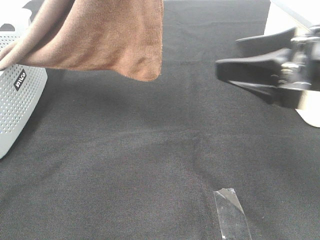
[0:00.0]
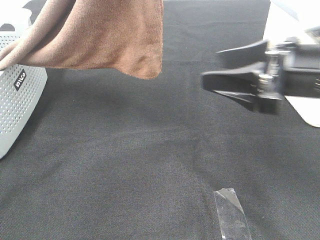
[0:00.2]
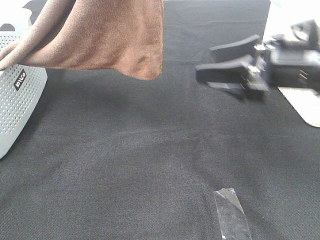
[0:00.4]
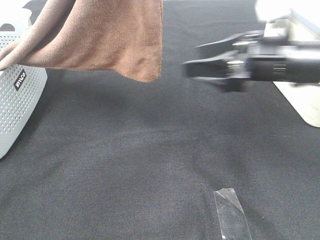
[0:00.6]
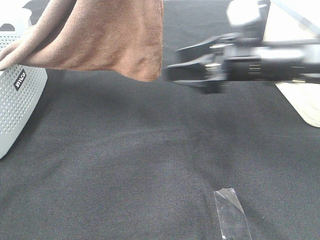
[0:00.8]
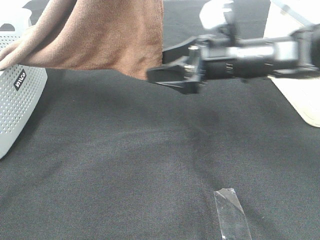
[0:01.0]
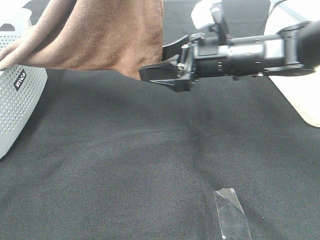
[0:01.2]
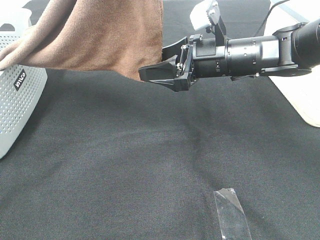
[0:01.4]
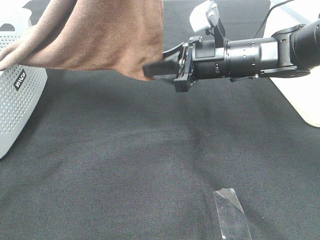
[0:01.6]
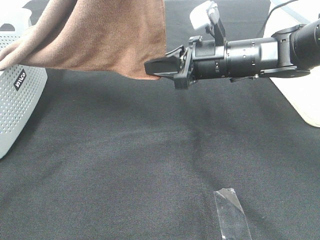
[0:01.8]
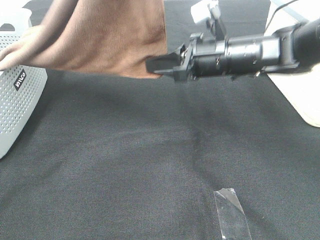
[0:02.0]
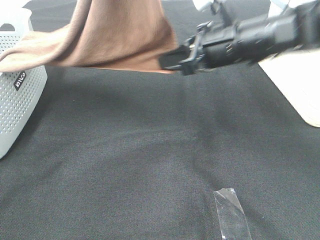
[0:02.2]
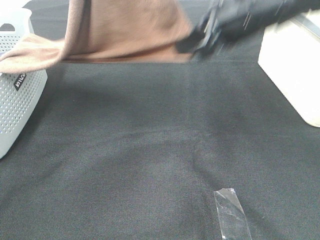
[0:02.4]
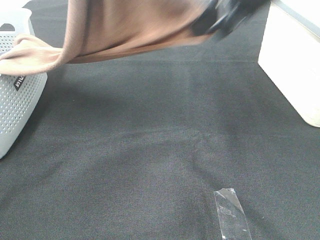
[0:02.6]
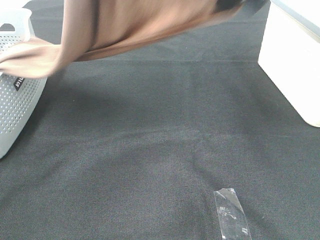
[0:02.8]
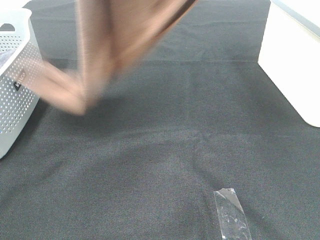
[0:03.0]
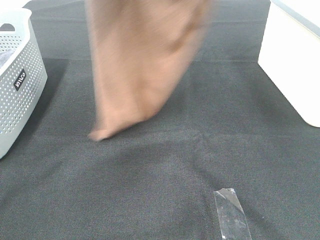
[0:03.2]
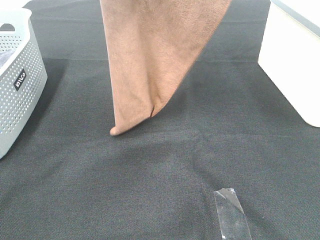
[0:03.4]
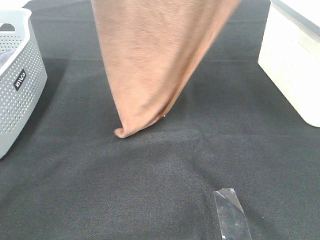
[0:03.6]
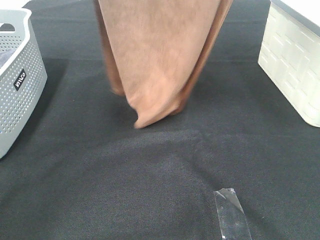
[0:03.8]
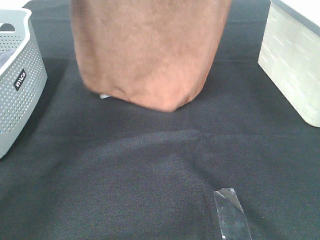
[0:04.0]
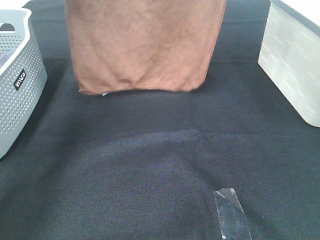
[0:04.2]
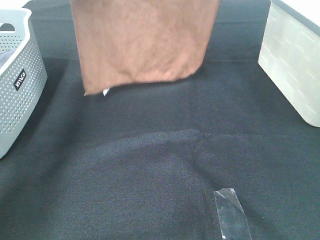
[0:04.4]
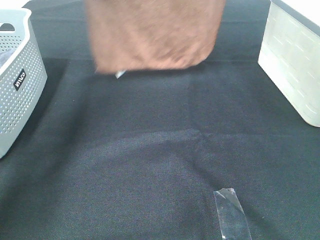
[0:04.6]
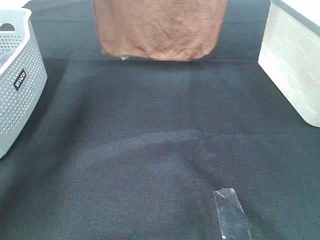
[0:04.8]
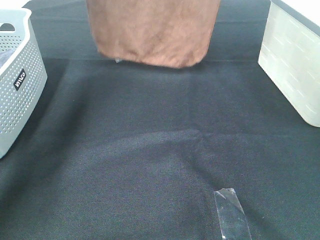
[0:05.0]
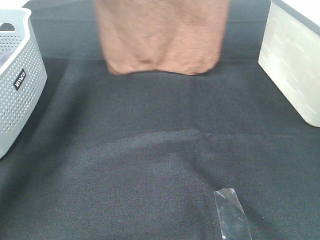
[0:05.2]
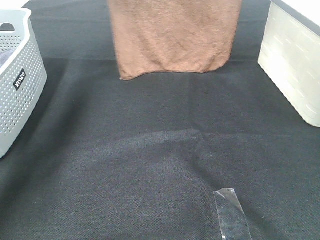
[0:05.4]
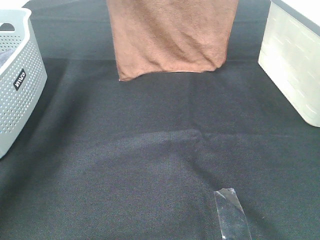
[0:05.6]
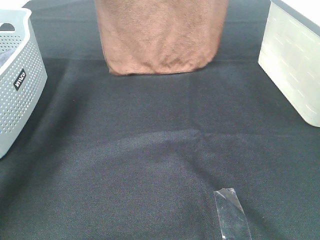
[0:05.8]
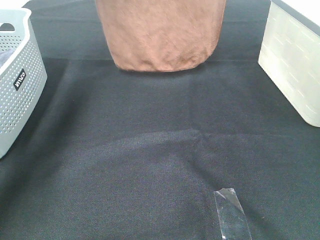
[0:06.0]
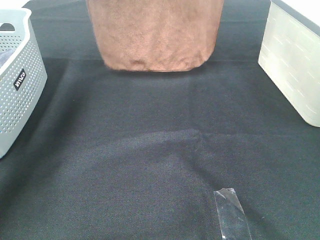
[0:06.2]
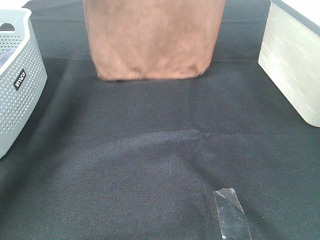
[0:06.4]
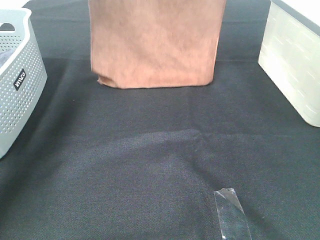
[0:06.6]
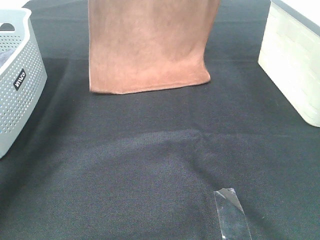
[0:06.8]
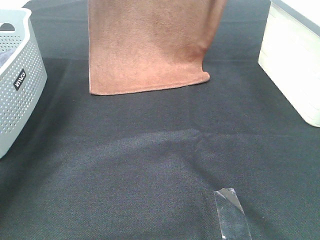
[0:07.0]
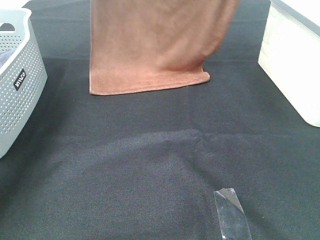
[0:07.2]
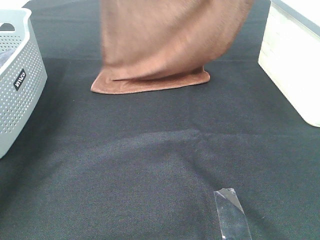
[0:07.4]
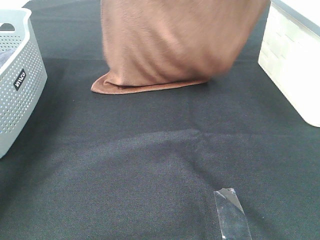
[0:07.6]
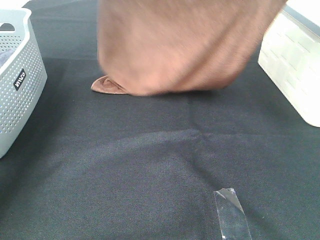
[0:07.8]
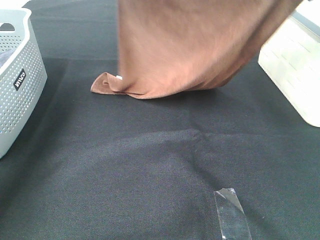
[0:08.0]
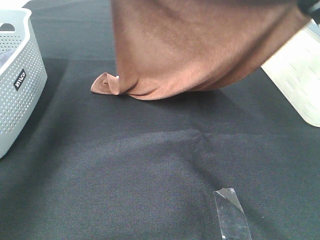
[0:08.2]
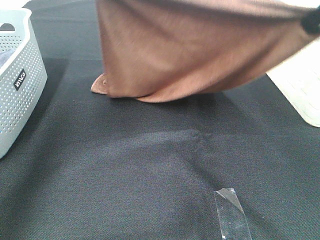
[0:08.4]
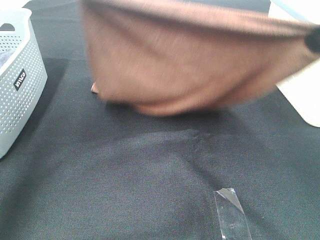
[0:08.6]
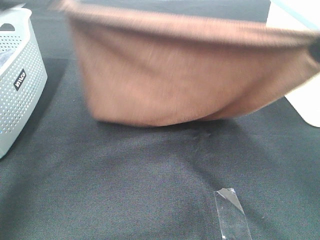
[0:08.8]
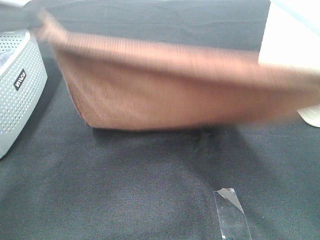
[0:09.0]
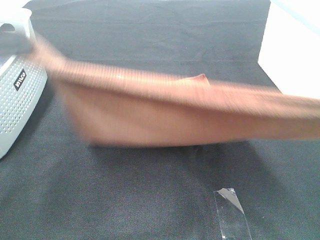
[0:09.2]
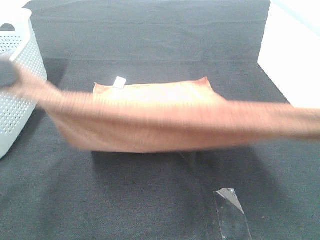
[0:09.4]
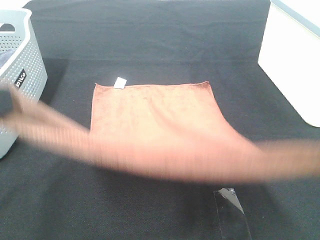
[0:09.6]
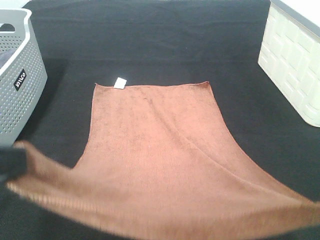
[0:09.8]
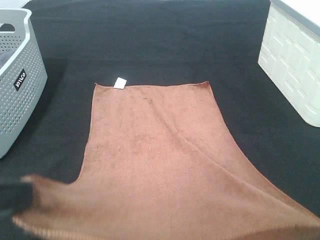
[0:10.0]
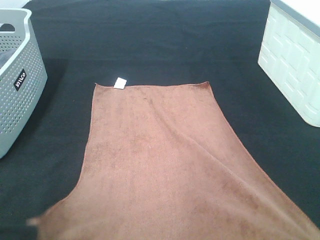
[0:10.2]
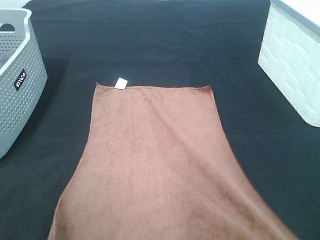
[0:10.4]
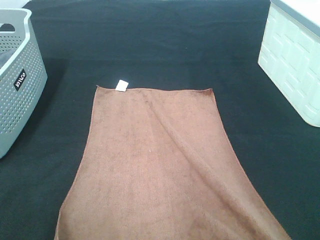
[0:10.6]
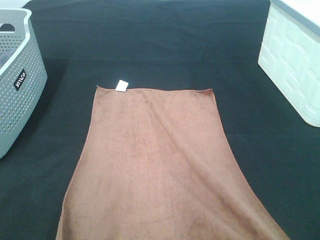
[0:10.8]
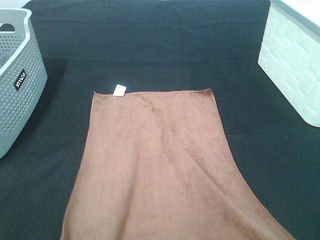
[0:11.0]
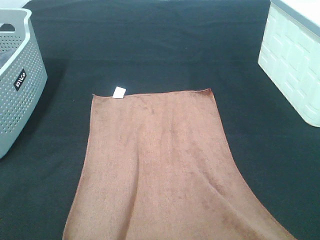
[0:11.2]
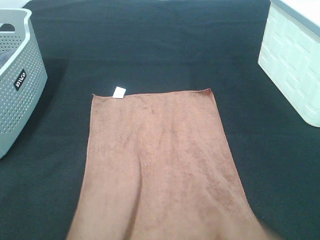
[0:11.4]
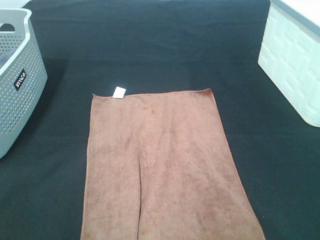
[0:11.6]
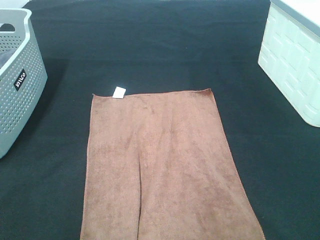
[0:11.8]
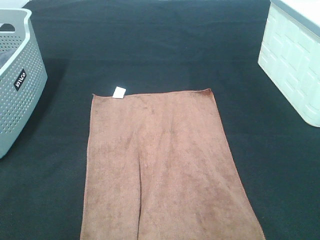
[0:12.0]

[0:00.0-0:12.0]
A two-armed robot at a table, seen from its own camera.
Task of the whole recording: Remove the towel and place it.
Step, 0.0 to 1.8 s: Right hand: grab a corner of the brown towel and straighten it.
Step, 2.0 to 7.8 s: Left hand: spread the brown towel flat on the table.
Step, 2.0 to 7.8 s: Right hand: spread the brown towel flat on the table.
0.0 to 1.6 s: The right gripper goes some 15 cm forward, to the left and downward, and closes.
1.6 to 3.0 s: The right gripper shifts approximately 30 cm upward, while the left gripper heads upward and to the left, covering about 10 cm.
3.0 to 4.4 s: The right gripper goes roughly 10 cm forward; the left gripper moves forward and to the left, about 15 cm.
4.4 to 6.0 s: Both grippers move forward, approximately 5 cm.
6.0 to 7.6 s: The right gripper heads backward and downward, covering approximately 15 cm. Meanwhile the left gripper ends up about 5 cm from where it was.
7.6 to 9.0 s: The grippers both shift backward by about 25 cm.
9.0 to 10.4 s: The grippers both shift backward and downward by approximately 15 cm.
10.4 to 12.0 s: The left gripper opens its fingers, while the right gripper opens up.

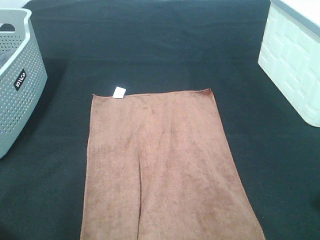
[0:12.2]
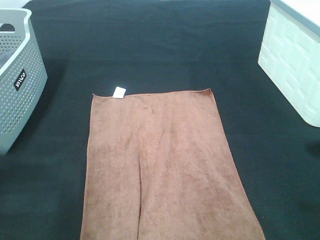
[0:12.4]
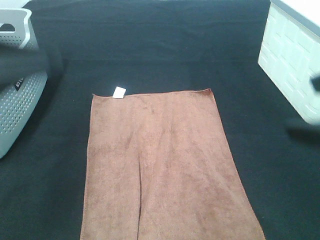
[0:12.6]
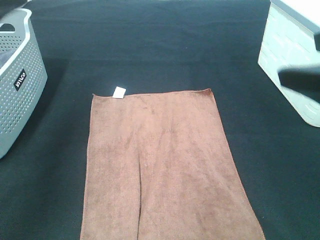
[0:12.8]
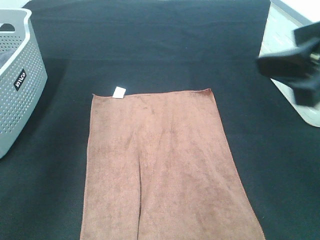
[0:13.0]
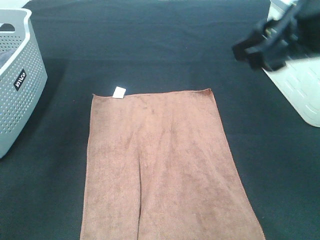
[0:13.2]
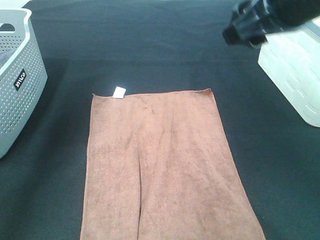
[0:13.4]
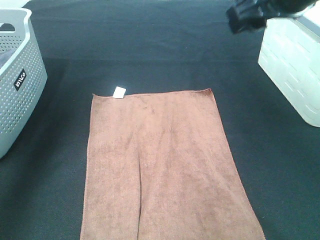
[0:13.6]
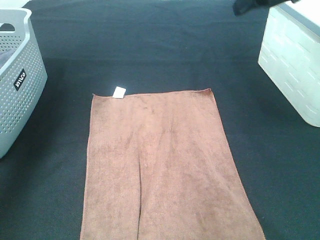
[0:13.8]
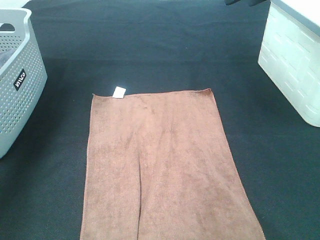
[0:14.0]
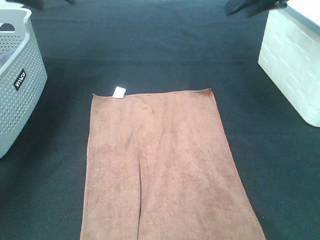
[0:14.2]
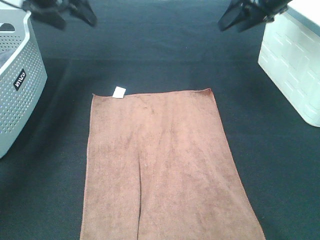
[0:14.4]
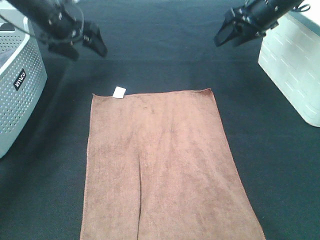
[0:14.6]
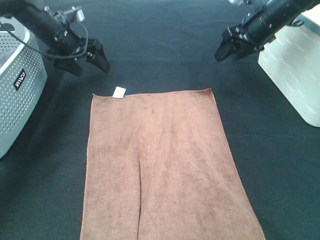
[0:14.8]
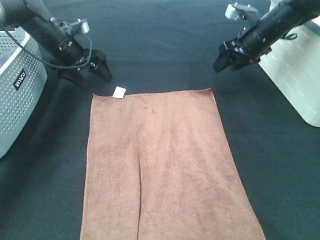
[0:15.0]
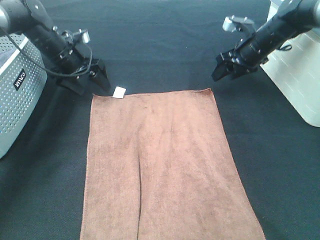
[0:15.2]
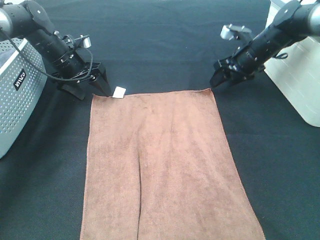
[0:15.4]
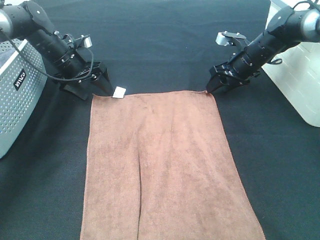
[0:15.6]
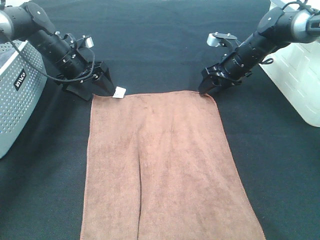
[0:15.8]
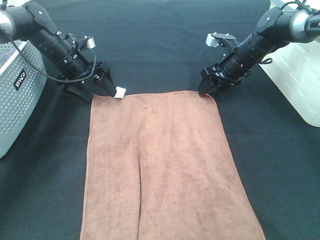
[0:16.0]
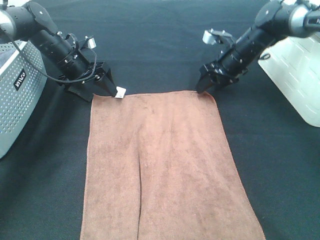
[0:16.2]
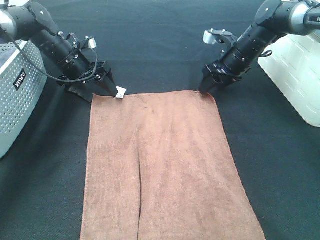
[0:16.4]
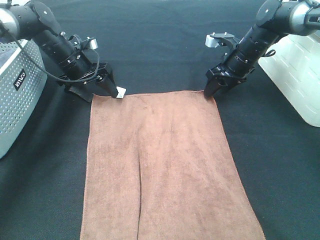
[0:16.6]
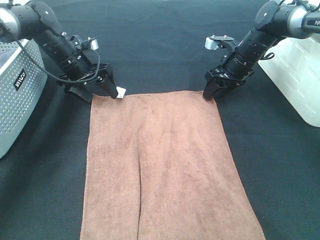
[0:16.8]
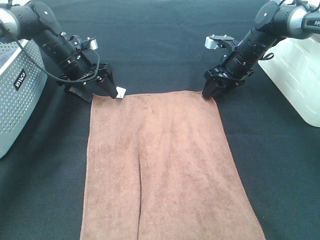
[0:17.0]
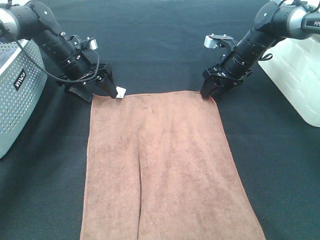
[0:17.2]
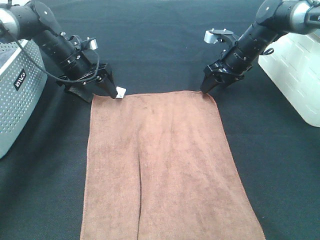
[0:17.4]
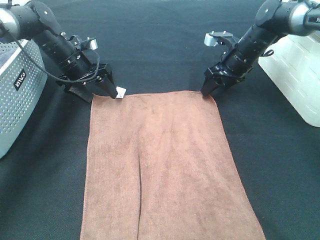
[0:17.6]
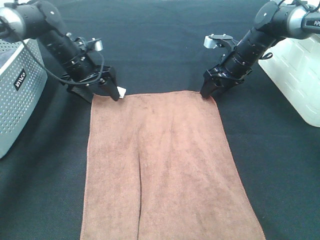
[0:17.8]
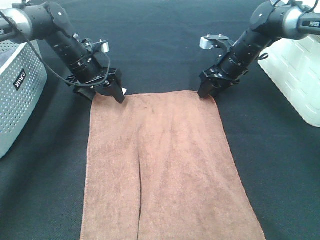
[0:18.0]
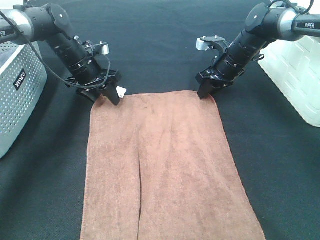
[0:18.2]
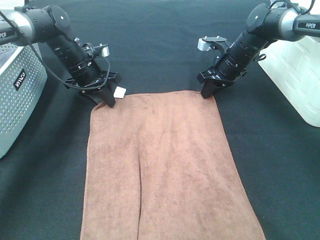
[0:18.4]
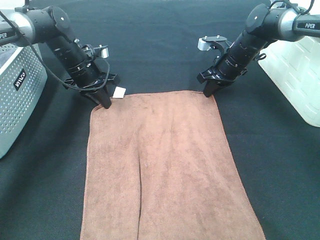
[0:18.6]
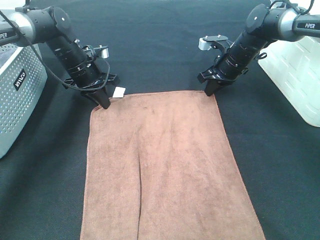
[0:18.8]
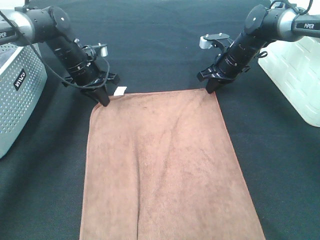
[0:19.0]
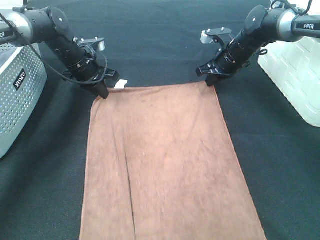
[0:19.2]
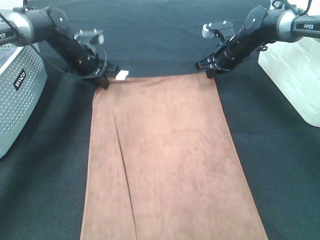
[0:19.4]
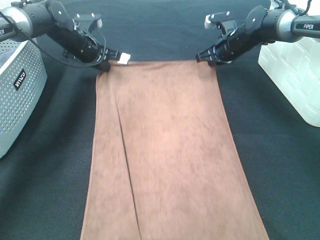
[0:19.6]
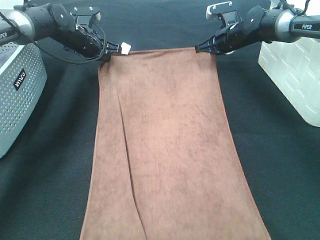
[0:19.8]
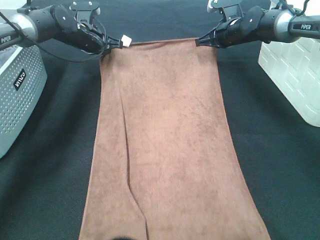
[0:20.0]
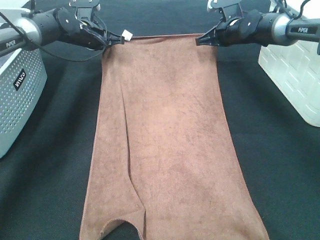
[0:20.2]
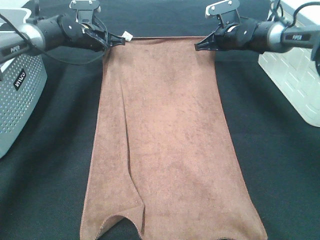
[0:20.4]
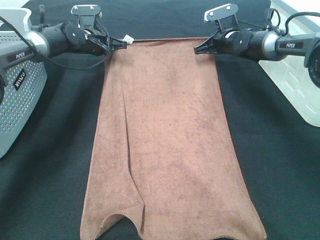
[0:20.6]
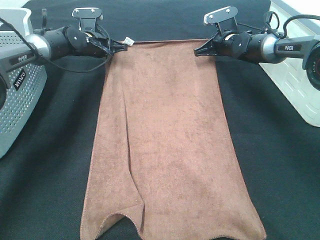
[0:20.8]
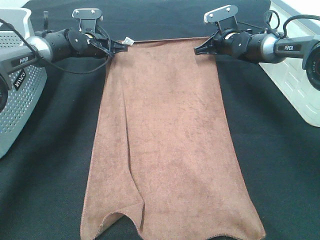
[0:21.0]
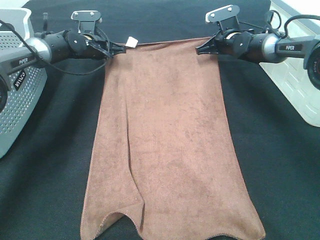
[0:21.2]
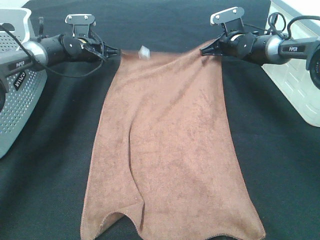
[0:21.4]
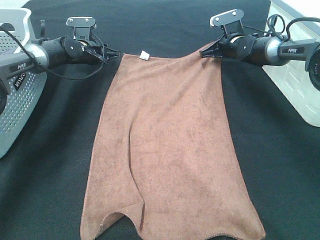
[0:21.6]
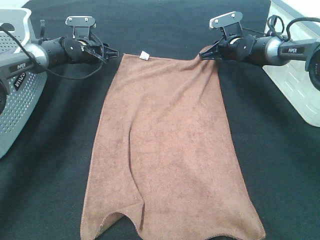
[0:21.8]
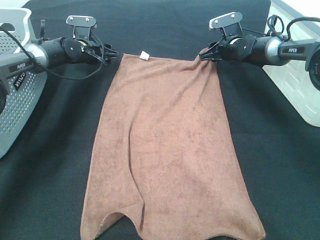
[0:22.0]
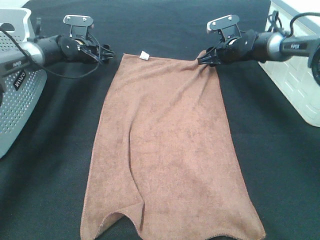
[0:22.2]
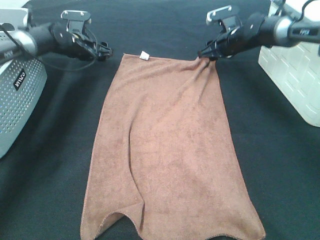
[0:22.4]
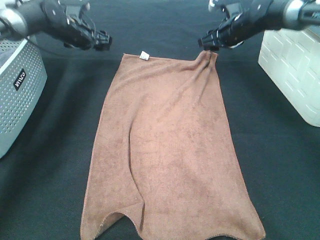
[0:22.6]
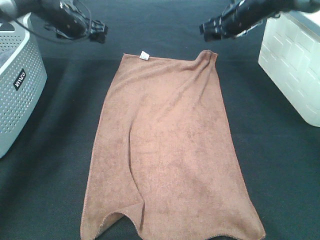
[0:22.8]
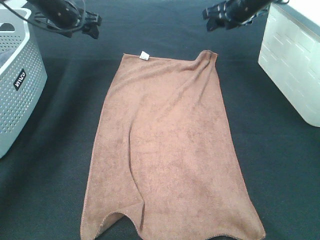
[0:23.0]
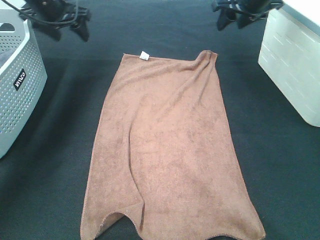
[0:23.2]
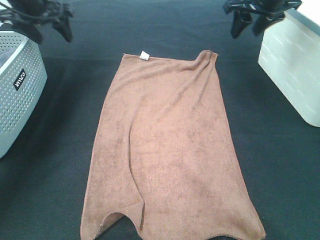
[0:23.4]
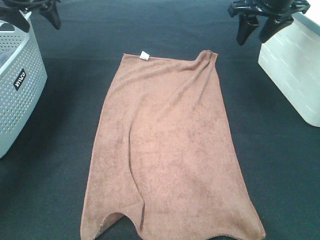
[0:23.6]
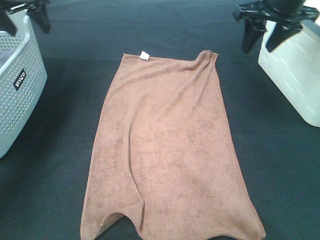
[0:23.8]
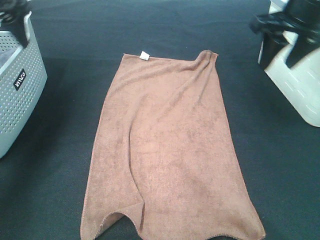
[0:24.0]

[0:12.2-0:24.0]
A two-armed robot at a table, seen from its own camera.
Task of the whole recording: Remove the towel and place it.
Step, 12.2 to 15.6 s: Left hand:adjust the brown towel.
Step, 12.2 to 16.2 s: Right hand:adjust the brown towel.
12.2 to 13.6 s: The right gripper is displaced forward by some 25 cm; the left gripper moves forward and upward, roughly 35 cm.
13.6 to 15.2 s: The left gripper moves downward and forward, approximately 30 cm. The right gripper heads forward and downward, covering about 30 cm.
15.2 to 16.6 s: The grippers make only small movements.
16.6 to 18.2 s: The right gripper closes its fingers.
18.2 to 19.6 s: The right gripper changes place by some 5 cm, and closes its fingers. The left gripper shifts approximately 5 cm forward, and closes.
21.0 to 22.6 s: The grippers both shift upward by about 5 cm. The left gripper opens its fingers; the right gripper opens its fingers.
22.6 to 24.0 s: The right gripper moves backward and upward, about 25 cm. The left gripper travels backward, upward and to the left by about 25 cm.
